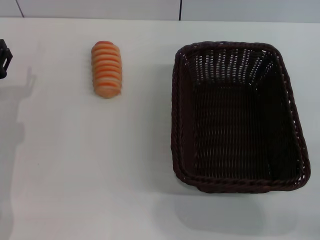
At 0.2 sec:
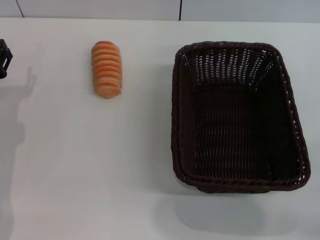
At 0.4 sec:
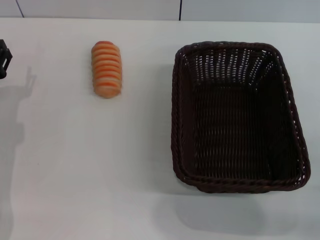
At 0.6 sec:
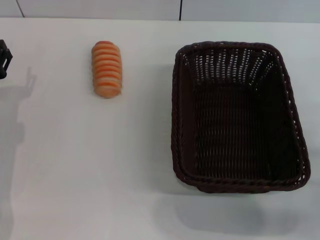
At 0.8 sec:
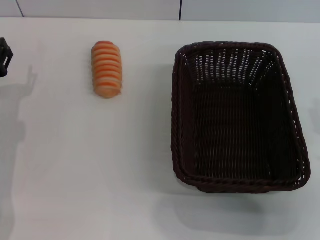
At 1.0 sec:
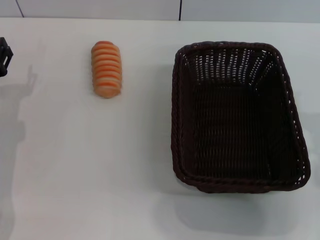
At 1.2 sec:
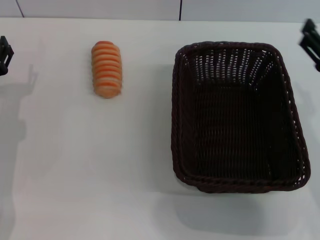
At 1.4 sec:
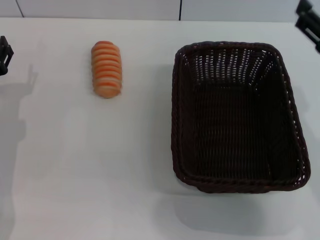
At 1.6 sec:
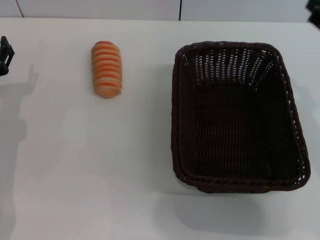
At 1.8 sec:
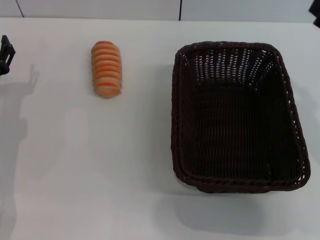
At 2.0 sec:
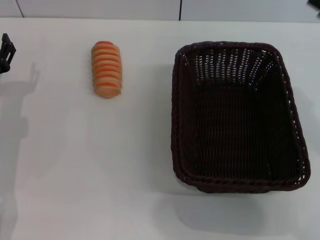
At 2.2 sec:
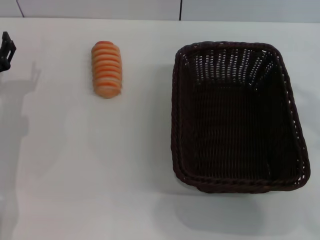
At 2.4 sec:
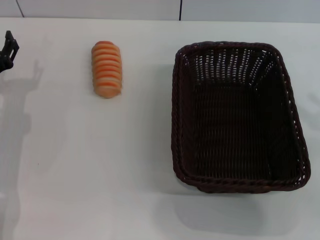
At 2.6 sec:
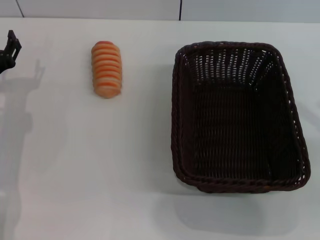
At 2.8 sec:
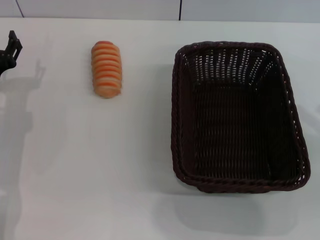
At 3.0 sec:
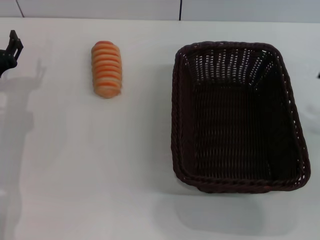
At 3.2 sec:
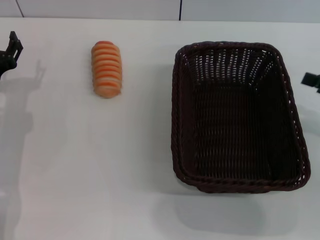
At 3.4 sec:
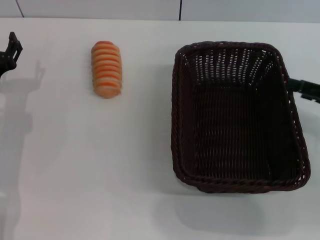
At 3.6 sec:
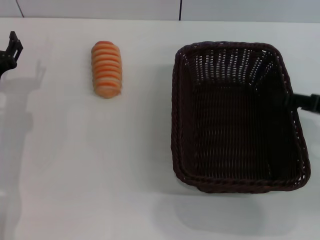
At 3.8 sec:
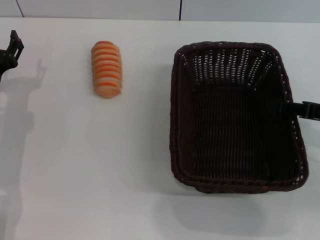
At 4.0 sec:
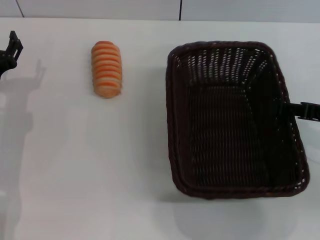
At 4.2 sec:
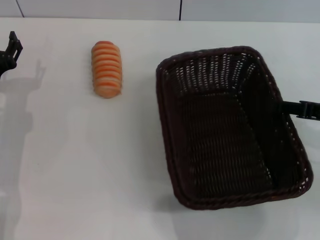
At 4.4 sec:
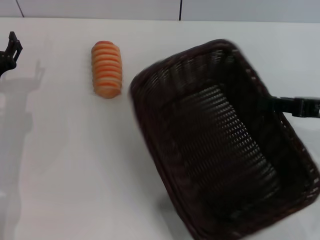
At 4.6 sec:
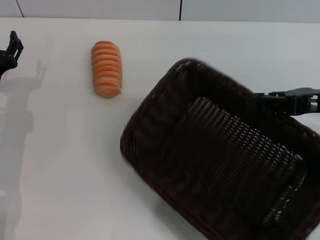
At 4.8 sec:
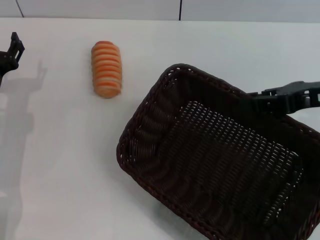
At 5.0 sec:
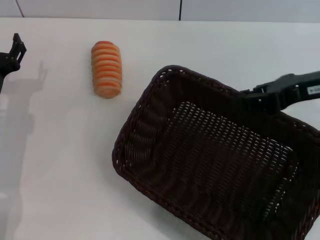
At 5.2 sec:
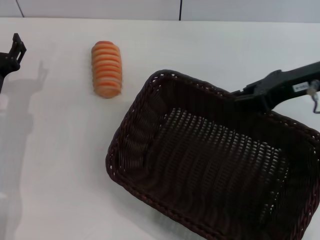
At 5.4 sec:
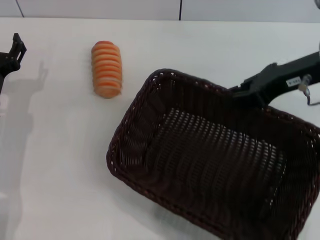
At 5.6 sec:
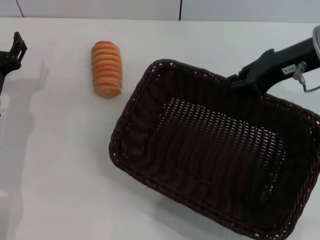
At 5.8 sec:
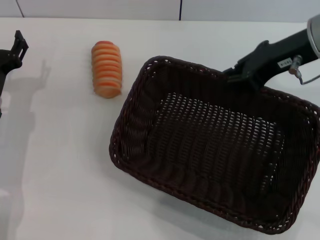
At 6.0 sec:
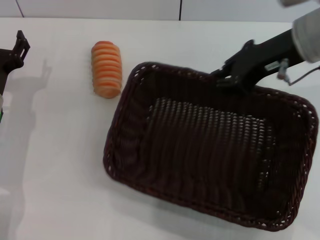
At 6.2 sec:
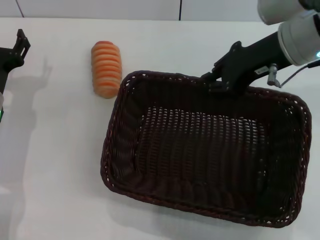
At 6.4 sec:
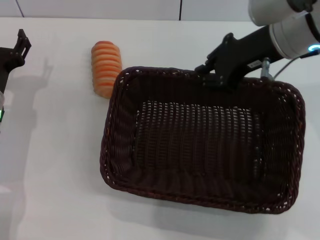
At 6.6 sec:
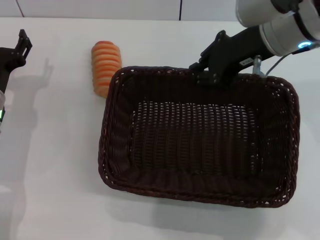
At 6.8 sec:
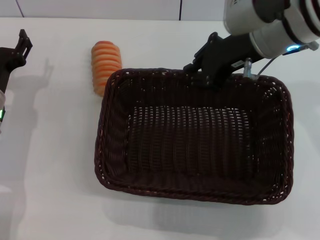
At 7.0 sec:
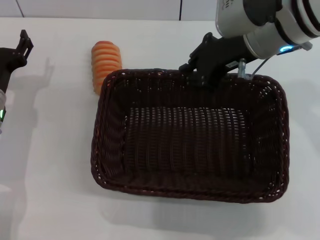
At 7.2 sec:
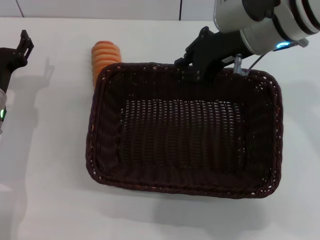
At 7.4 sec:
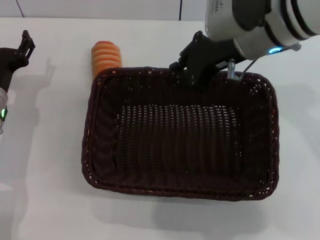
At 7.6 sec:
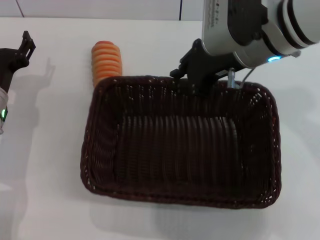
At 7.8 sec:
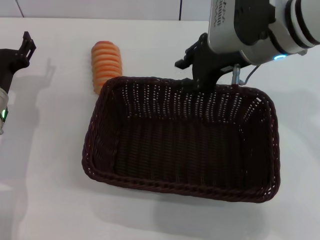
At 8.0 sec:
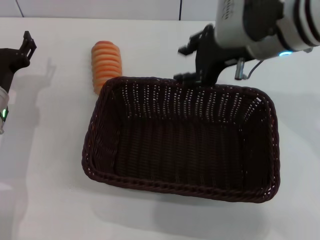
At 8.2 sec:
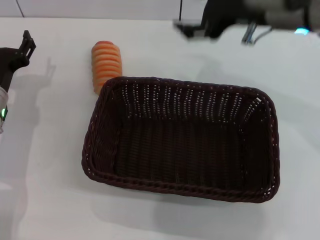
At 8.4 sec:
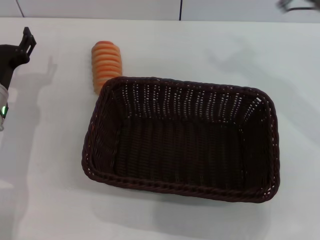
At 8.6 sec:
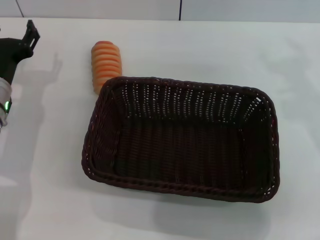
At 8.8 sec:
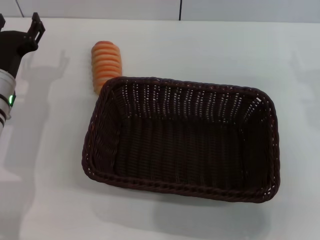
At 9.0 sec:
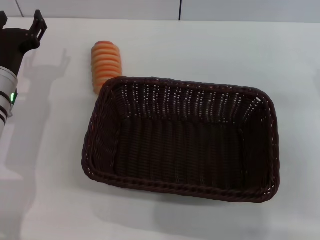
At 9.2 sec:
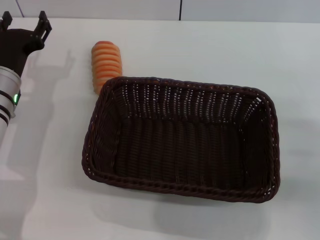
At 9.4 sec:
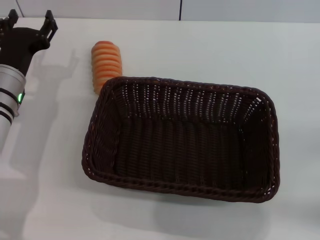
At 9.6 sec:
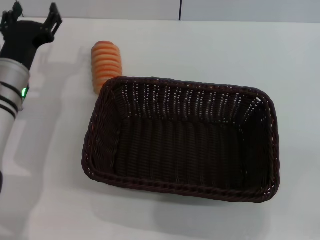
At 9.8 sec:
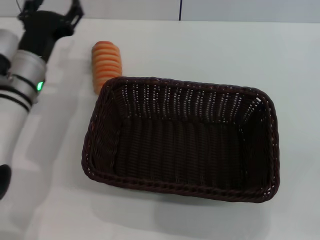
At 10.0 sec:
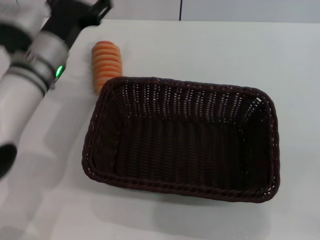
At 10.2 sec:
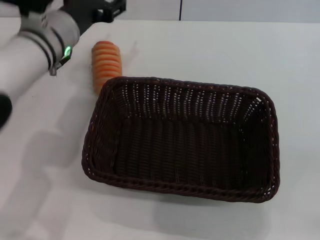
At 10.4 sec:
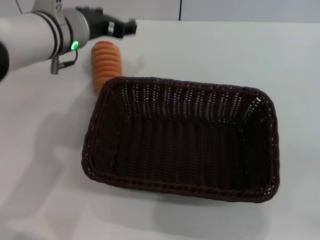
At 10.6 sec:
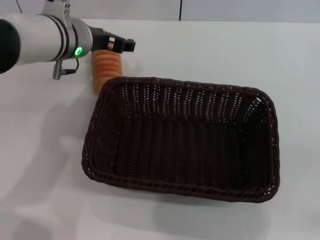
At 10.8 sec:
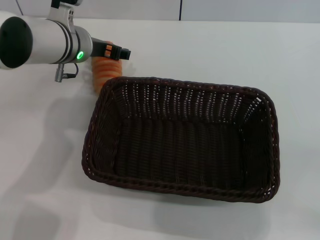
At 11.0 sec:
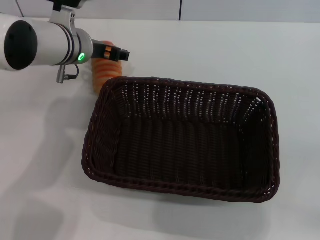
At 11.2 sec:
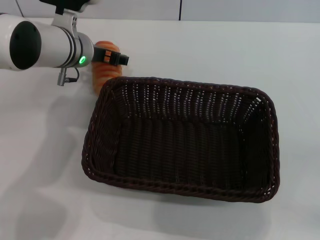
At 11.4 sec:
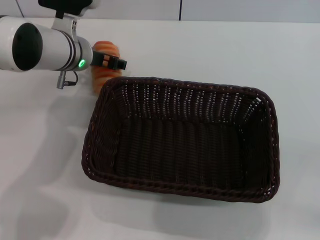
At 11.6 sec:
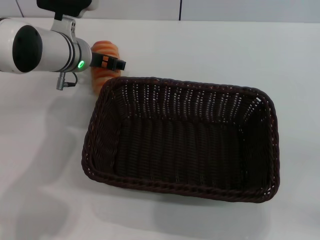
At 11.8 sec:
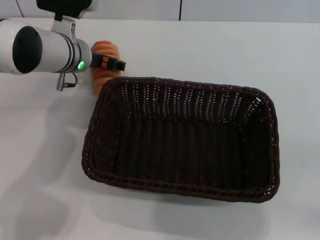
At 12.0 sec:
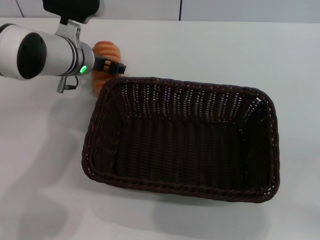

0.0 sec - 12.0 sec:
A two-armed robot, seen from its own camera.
Step, 0.0 sec - 5.6 sec: Pick up the dark basket with the right gripper.
Step, 5.8 sec - 7.8 sec: Place the dark basket in the center of view with the right gripper.
0.0 sec - 1.6 sec: The right gripper travels upward and to the left by some 20 cm.
1.6 sec - 3.0 sec: The right gripper is displaced to the right and downward by about 10 cm.
3.0 sec - 4.4 sec: The right gripper moves to the left, roughly 5 cm, and closes.
4.4 sec - 6.0 sec: The right gripper travels to the left, upward and forward by some 15 cm.
6.0 sec - 7.6 sec: The right gripper is displaced to the left by some 5 cm.
7.6 sec - 9.0 sec: The right gripper shifts some 20 cm to the right, backward and downward, and opens its fingers.
9.0 sec - 10.4 sec: The right gripper goes about 20 cm backward, downward and to the right. The left gripper shifts some 15 cm upward and to the right.
10.4 sec - 12.0 sec: The left gripper heads downward, covering some 5 cm.

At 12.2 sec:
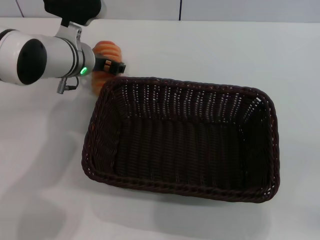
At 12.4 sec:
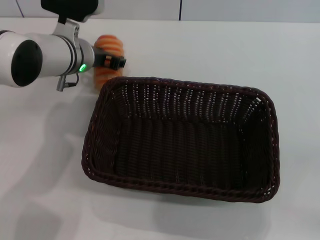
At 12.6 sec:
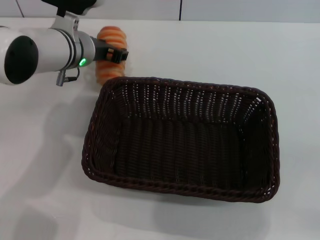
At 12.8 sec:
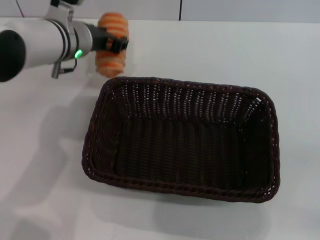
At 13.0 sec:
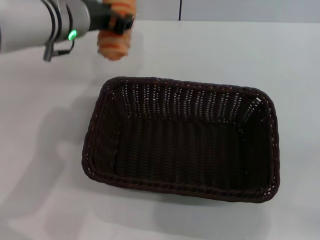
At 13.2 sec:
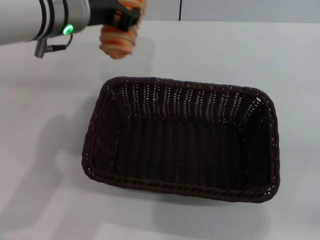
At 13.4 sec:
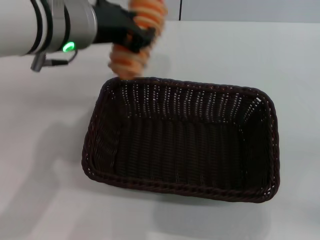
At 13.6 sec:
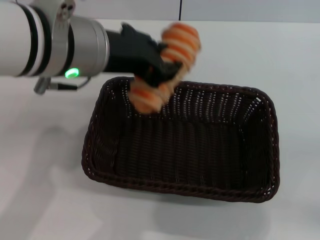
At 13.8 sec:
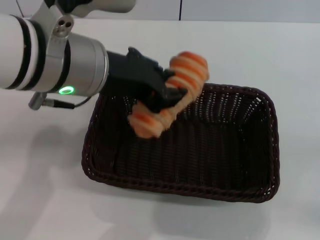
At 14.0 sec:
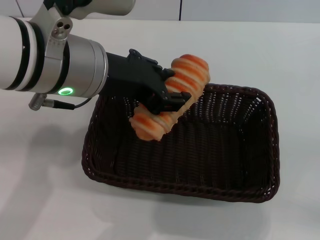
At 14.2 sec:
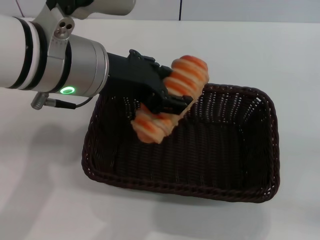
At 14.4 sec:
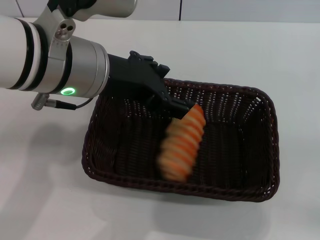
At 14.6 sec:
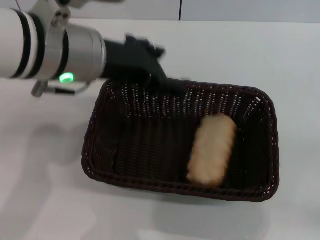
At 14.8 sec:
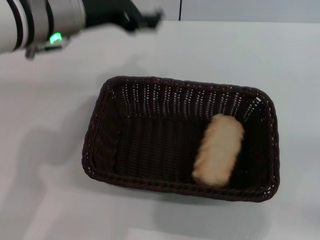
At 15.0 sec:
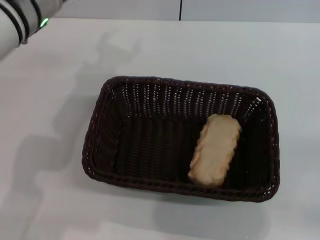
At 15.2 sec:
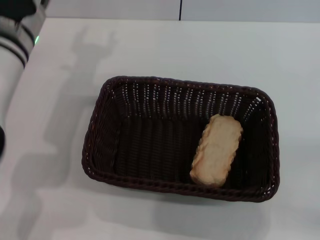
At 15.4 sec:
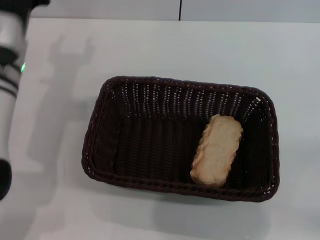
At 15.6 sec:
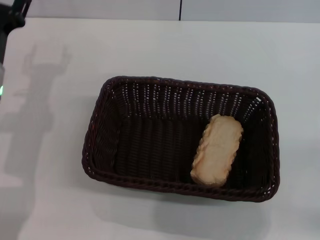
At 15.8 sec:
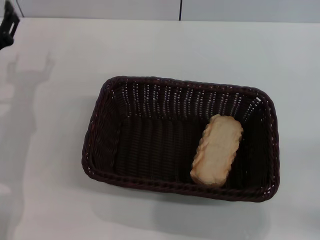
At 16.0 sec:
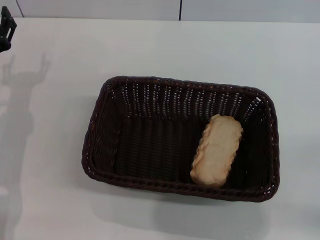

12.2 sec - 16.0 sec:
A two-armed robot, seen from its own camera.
Step, 13.8 sec - 15.2 sec: Place the long bread into the dark basket with the left gripper.
12.2 sec - 13.4 sec: The left gripper is displaced upward and backward by roughly 15 cm, and closes.
13.4 sec - 14.8 sec: The left gripper opens.
14.8 sec - 16.0 sec: The left gripper shifts about 20 cm downward and to the left.
